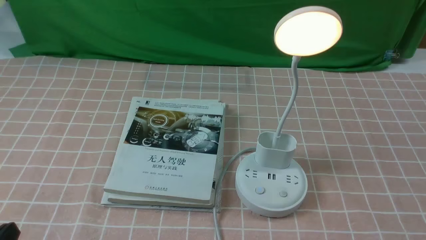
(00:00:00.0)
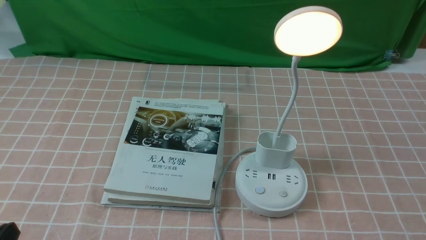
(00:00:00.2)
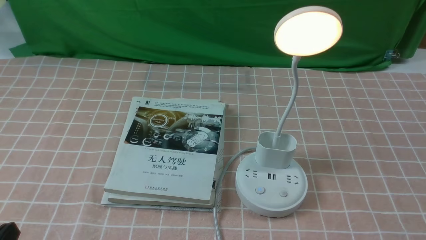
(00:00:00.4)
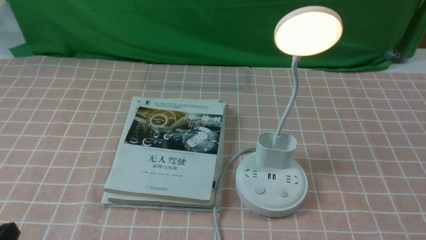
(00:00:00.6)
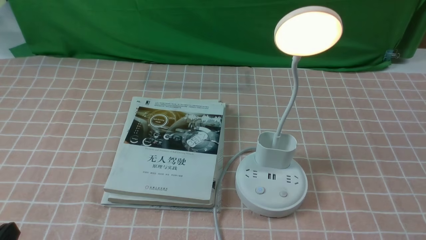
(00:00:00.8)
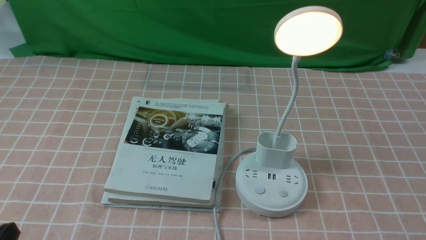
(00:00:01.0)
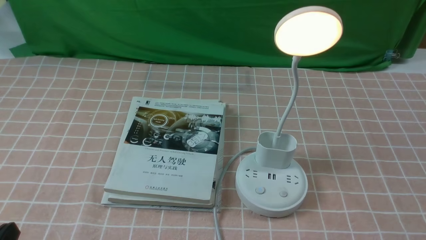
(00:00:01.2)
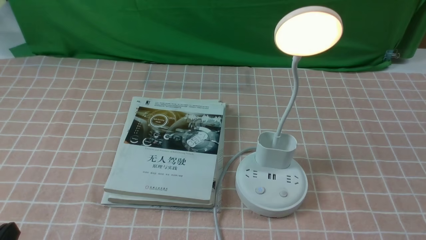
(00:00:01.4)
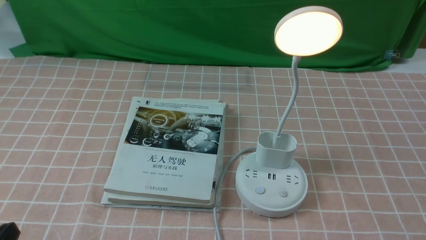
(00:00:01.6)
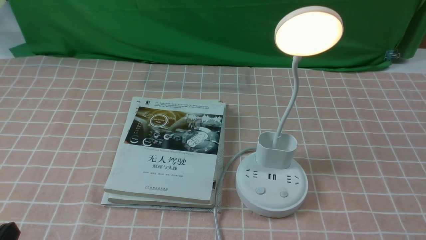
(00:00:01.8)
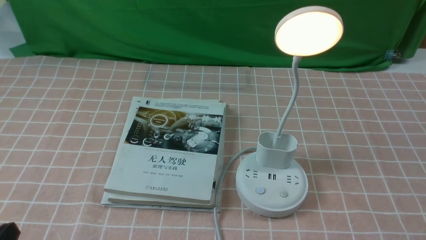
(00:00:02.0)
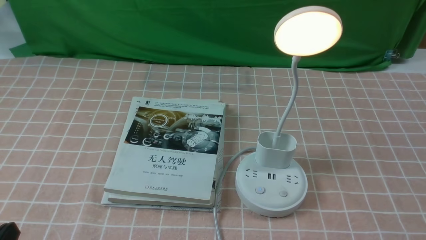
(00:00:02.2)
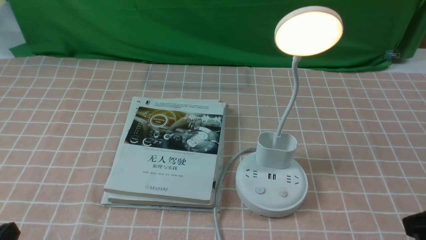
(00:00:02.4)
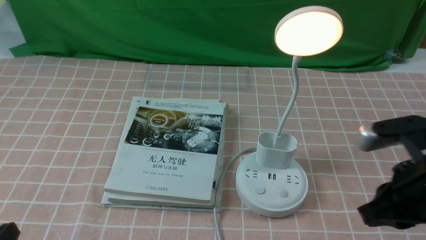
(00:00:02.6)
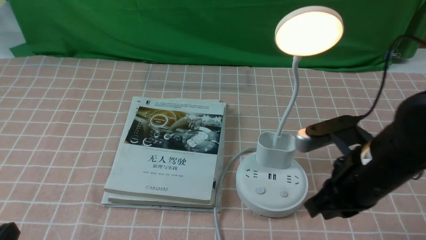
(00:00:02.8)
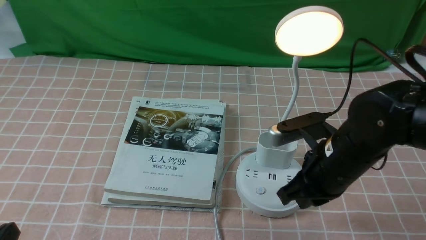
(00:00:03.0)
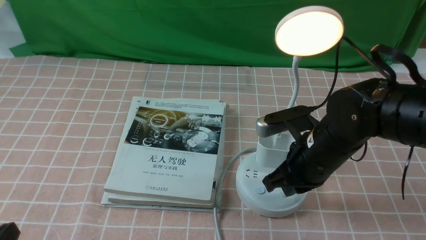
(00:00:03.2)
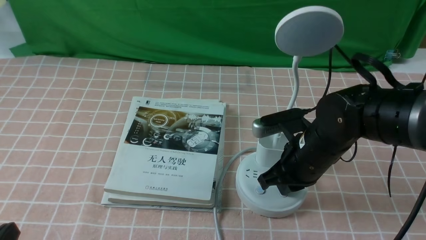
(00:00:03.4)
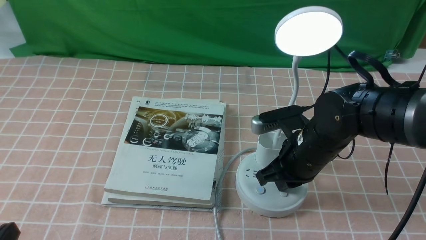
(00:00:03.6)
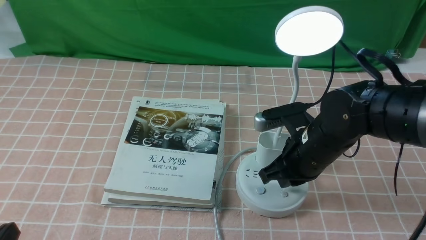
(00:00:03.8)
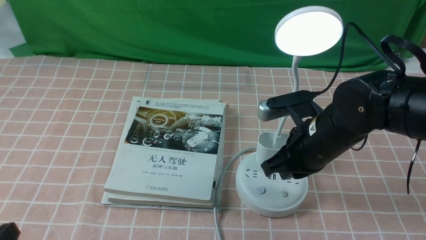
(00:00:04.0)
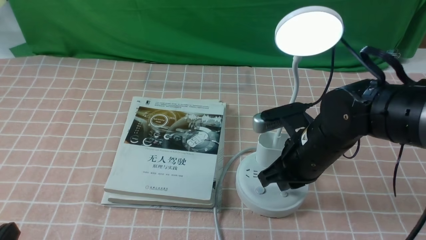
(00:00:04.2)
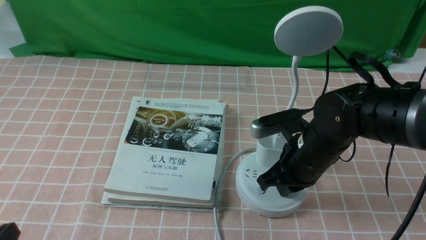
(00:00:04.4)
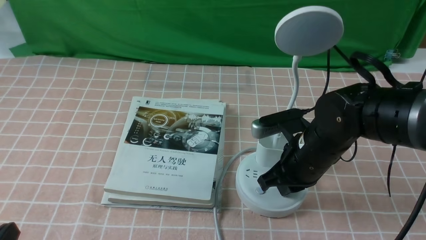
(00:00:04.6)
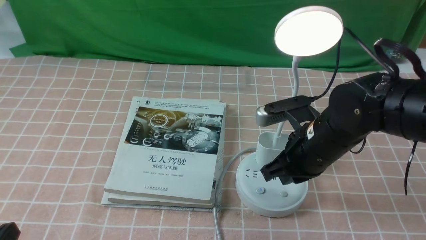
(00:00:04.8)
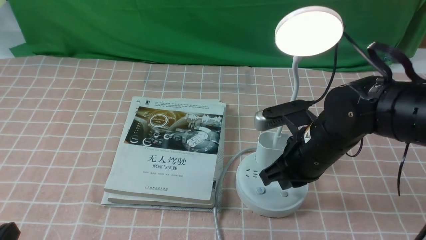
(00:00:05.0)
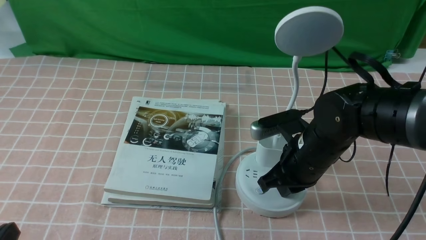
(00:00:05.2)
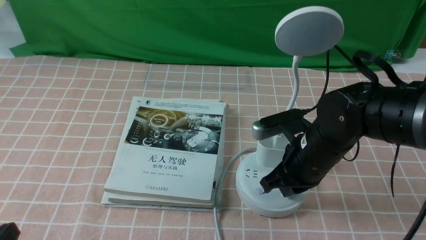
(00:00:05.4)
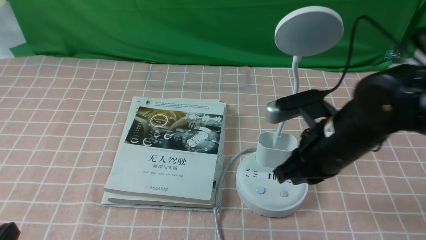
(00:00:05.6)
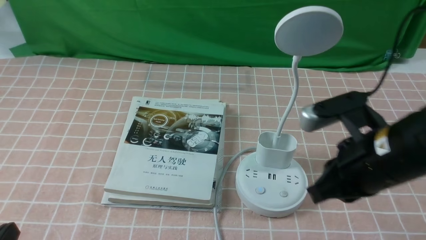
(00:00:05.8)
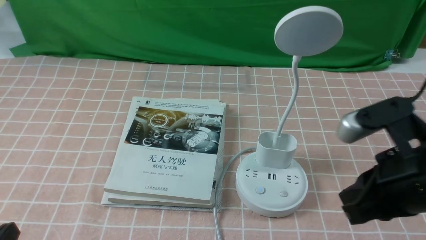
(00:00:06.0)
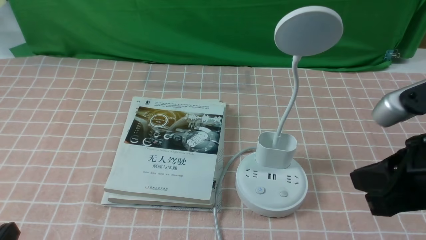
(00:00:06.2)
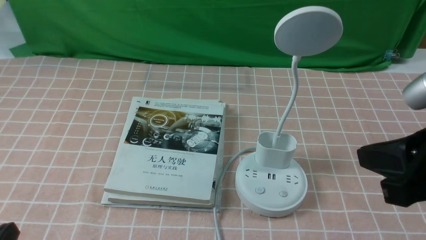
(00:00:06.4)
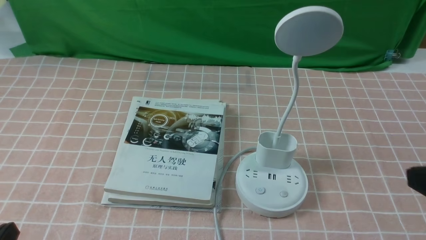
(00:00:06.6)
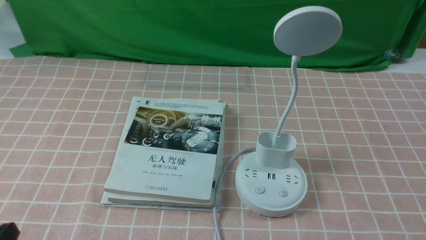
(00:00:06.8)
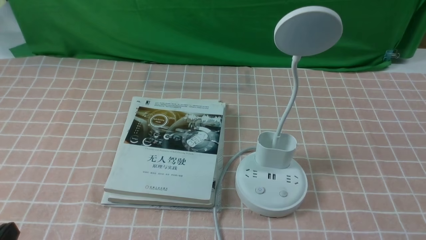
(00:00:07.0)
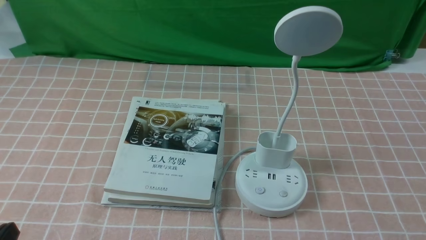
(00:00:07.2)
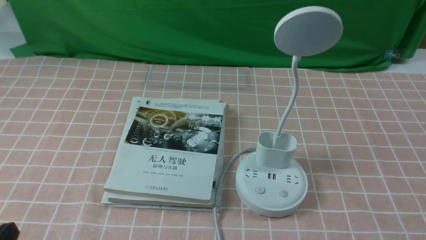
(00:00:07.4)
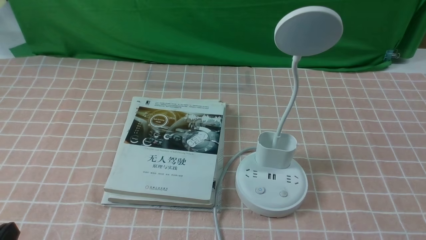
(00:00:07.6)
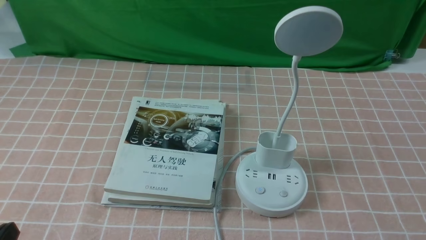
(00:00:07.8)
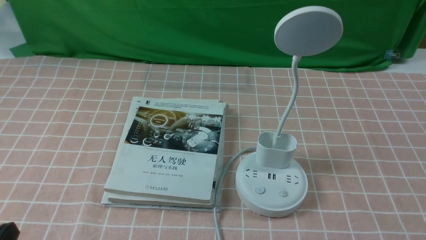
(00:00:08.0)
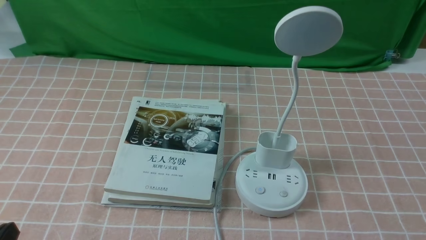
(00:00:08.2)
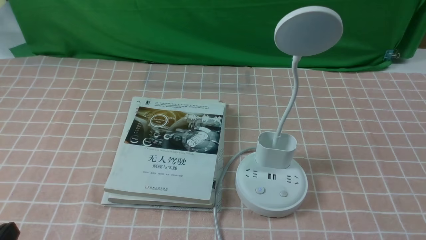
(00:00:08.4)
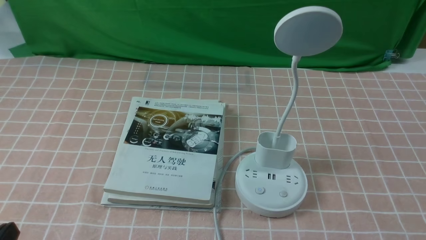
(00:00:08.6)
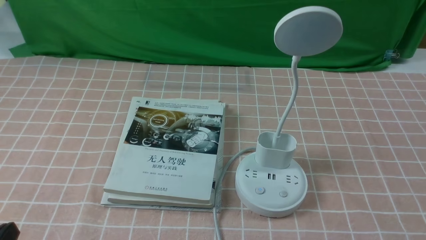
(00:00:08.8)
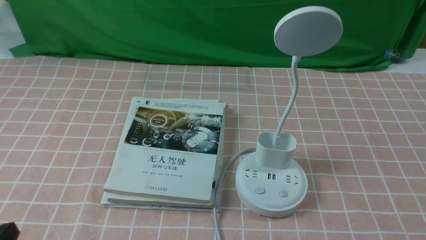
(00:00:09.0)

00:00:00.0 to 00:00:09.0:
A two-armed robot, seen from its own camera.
Task of the whole recording: turn off the table lamp on the pink coffee tablecloth by hand.
Step, 00:00:00.0 to 00:00:05.4: use the right arm to press the button switch on the lamp holder.
00:00:01.6 to 00:00:03.0: The right gripper travels forward and to the left by roughly 25 cm, and closes up.
00:00:03.0 to 00:00:04.4: The right gripper moves about 5 cm.
00:00:04.4 to 00:00:06.0: The right gripper is displaced upward, backward and to the right by approximately 20 cm.
00:00:06.0 to 00:00:07.6: The right gripper is displaced backward, to the right and downward by approximately 20 cm.
00:00:07.6 to 00:00:09.0: Neither gripper changes place.
